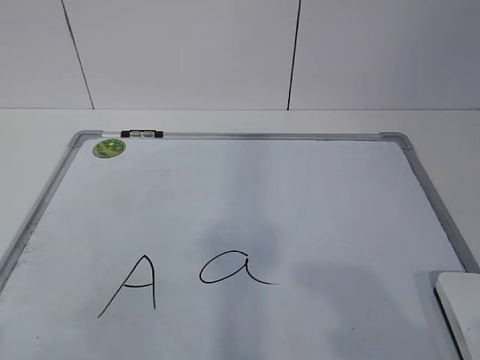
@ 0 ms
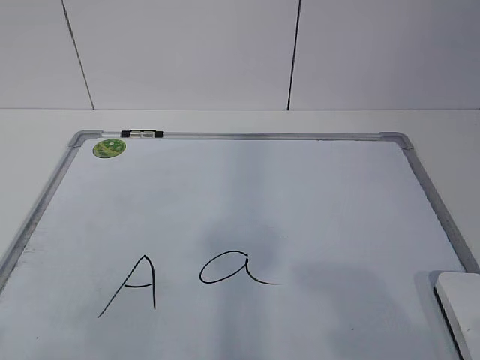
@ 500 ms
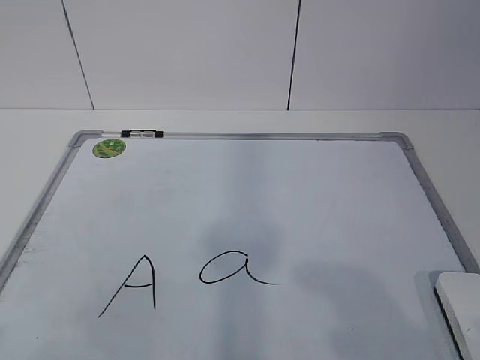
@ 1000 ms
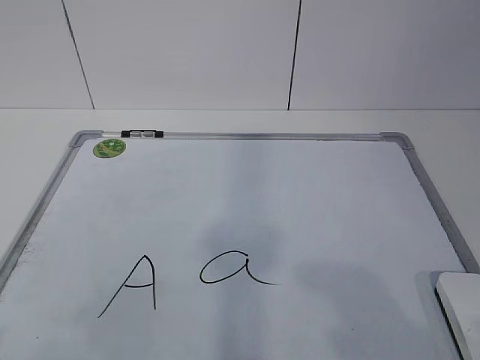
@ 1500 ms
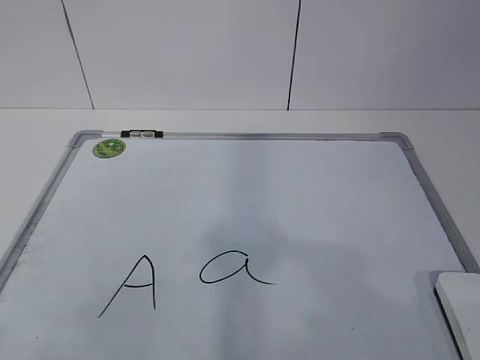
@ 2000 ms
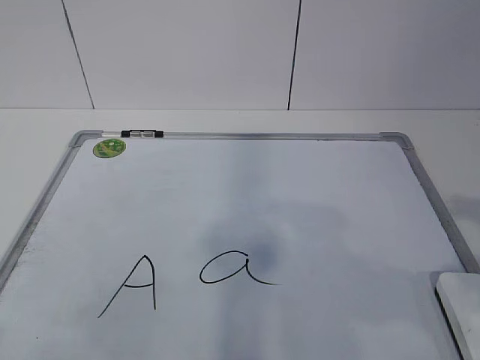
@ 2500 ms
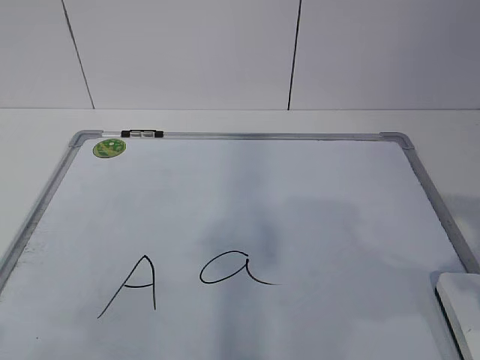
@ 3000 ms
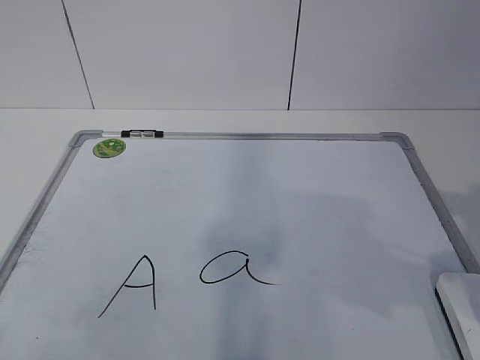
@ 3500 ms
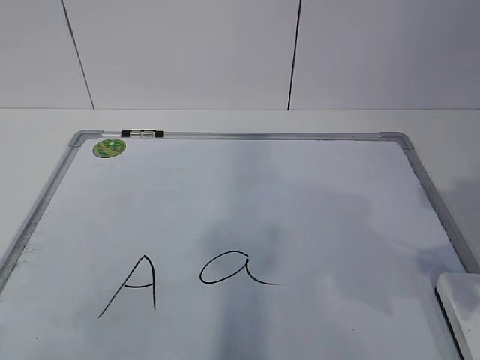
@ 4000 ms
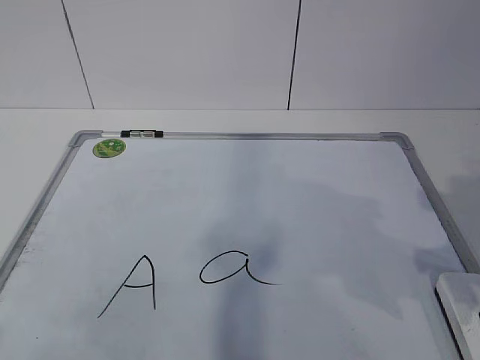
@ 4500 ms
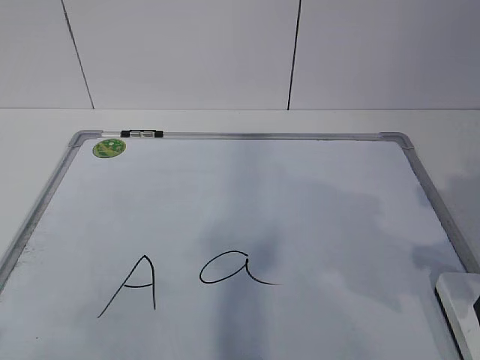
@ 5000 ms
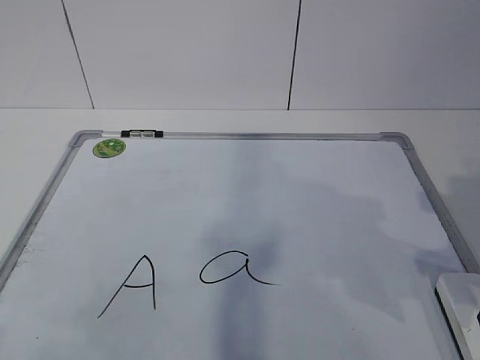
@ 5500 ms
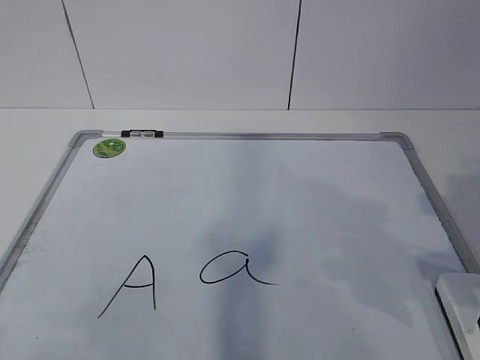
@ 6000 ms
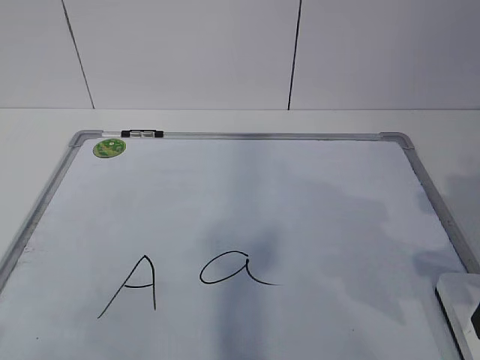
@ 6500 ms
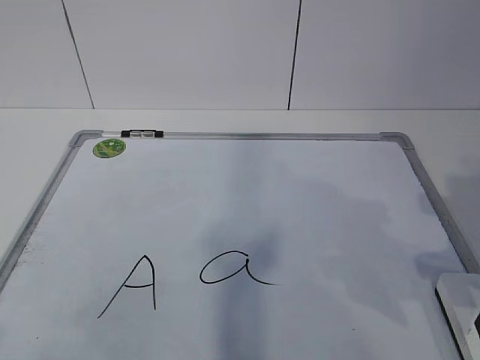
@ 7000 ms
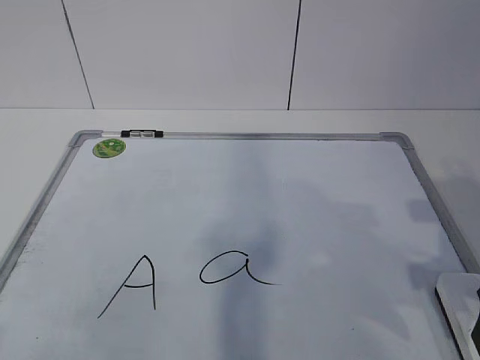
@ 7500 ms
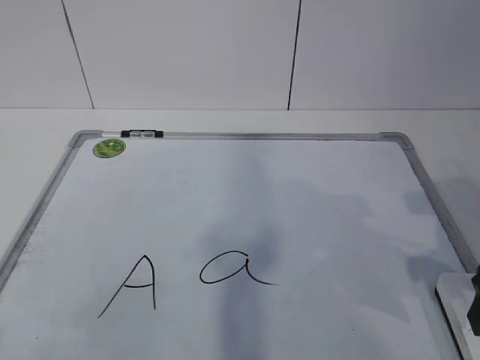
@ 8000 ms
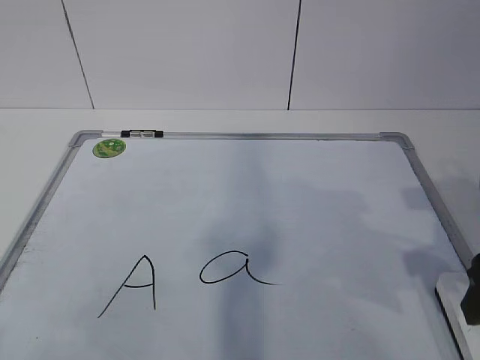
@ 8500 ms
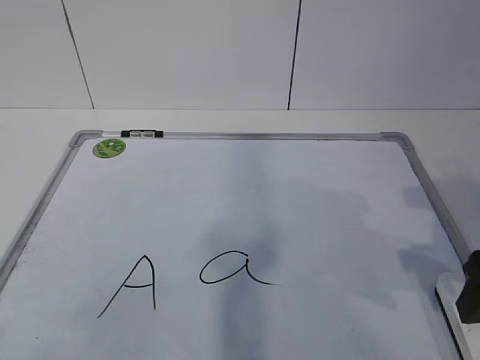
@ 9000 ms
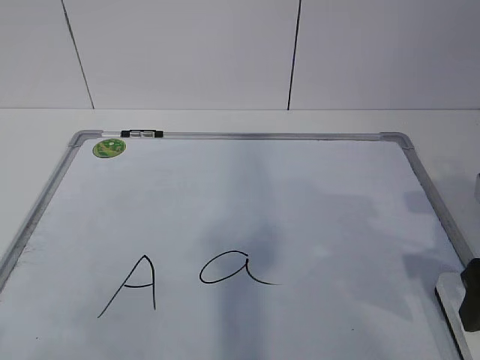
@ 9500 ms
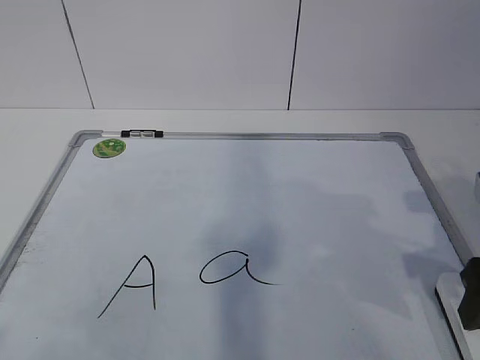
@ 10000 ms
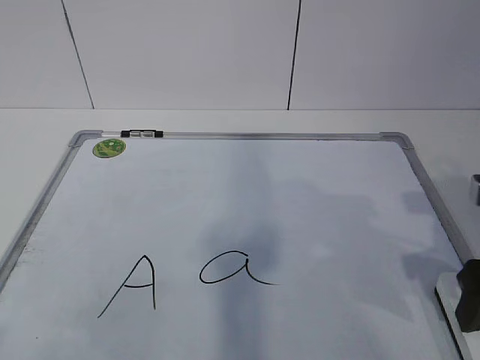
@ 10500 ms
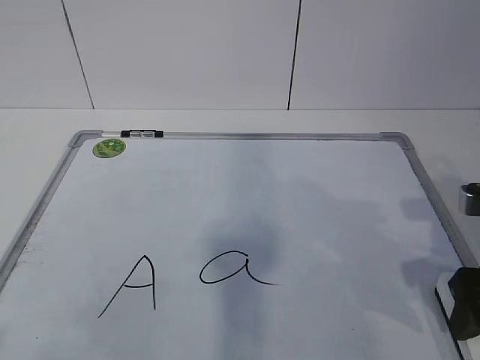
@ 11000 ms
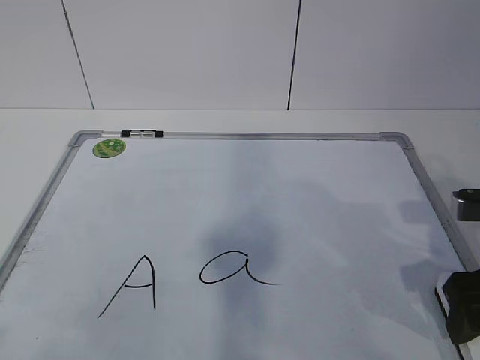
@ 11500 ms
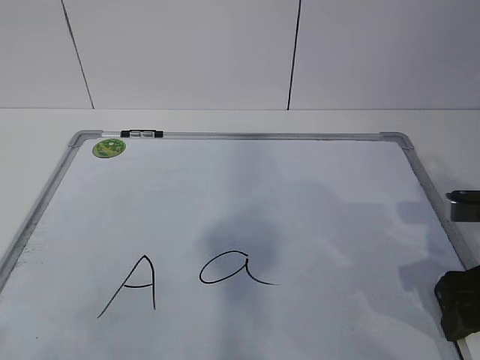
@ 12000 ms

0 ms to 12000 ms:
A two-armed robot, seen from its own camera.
Task of the whole recording: pick up the eraser on the blackboard and erase the letter "a".
2000 ms to 4000 ms: The right gripper travels forward by about 15 cm.
8000 ms to 10000 ms: The two grippers keep their place.
10000 ms to 12000 ms: The grippers move only a little.

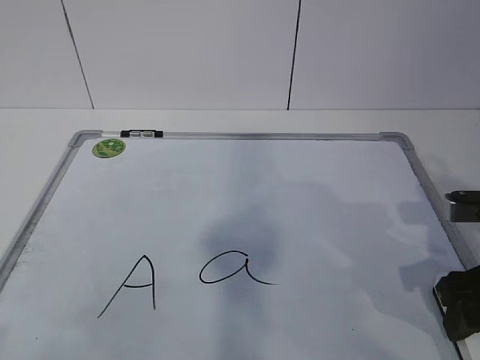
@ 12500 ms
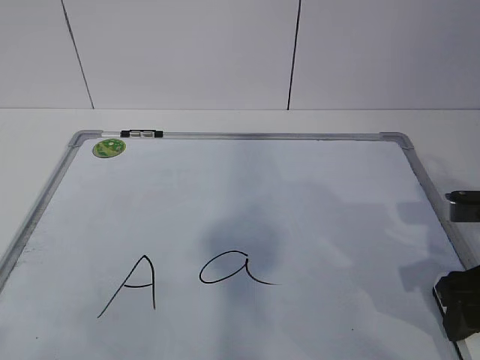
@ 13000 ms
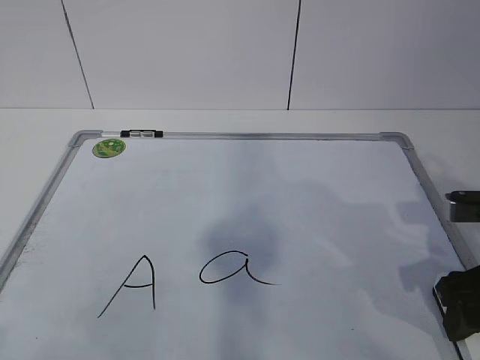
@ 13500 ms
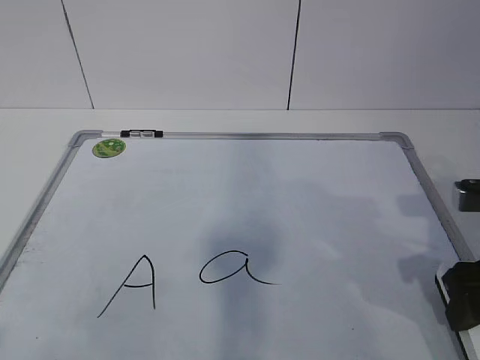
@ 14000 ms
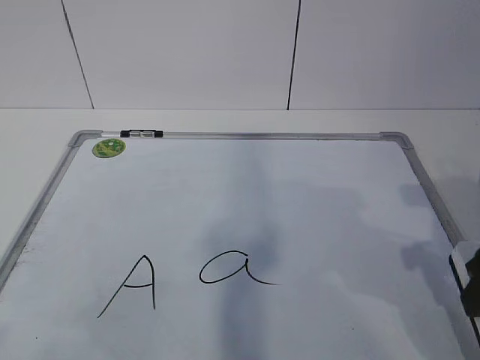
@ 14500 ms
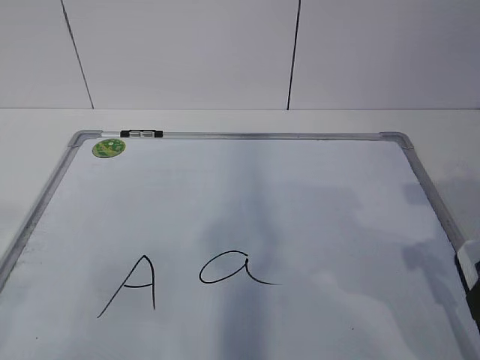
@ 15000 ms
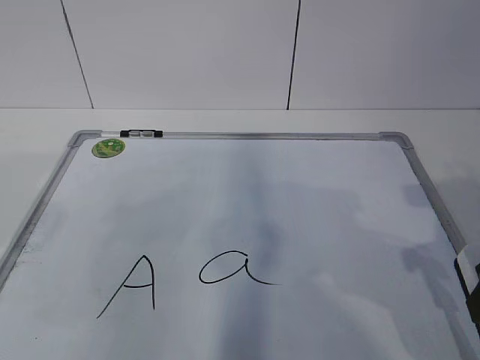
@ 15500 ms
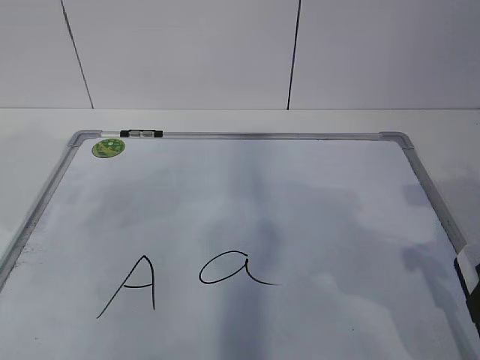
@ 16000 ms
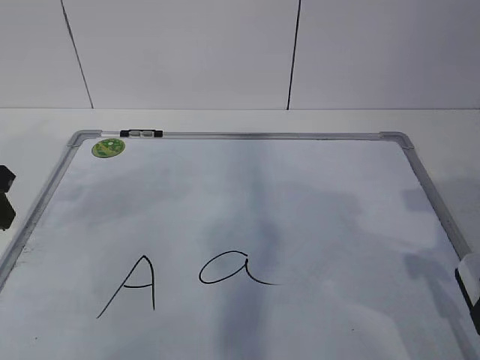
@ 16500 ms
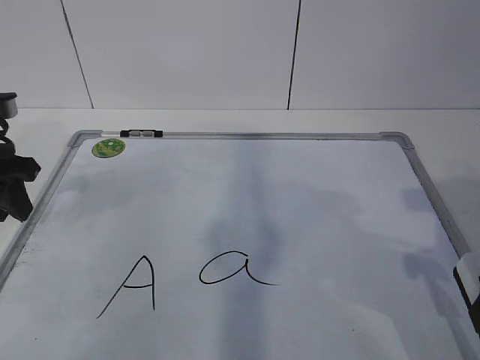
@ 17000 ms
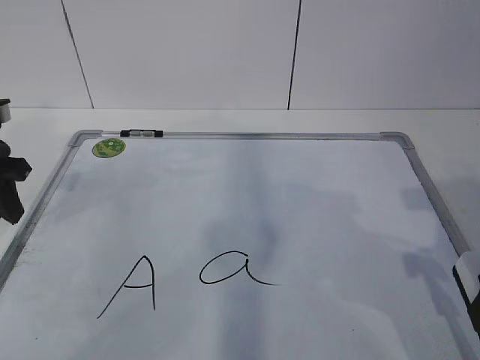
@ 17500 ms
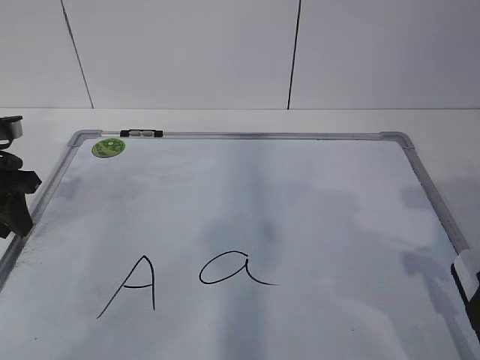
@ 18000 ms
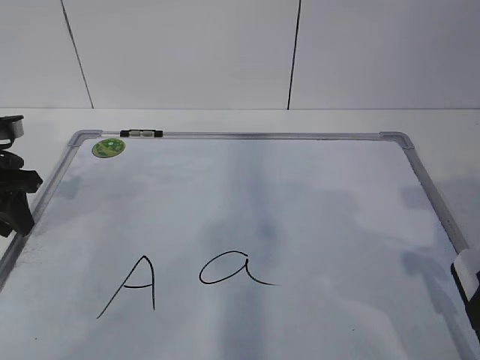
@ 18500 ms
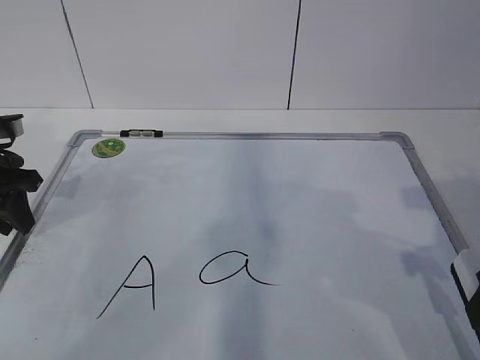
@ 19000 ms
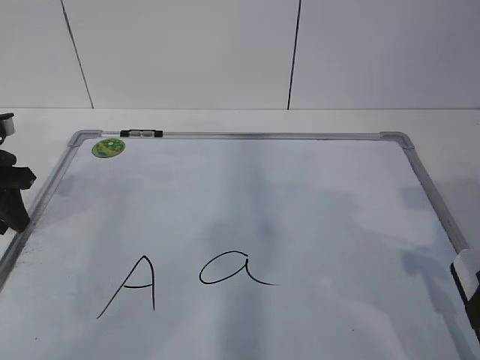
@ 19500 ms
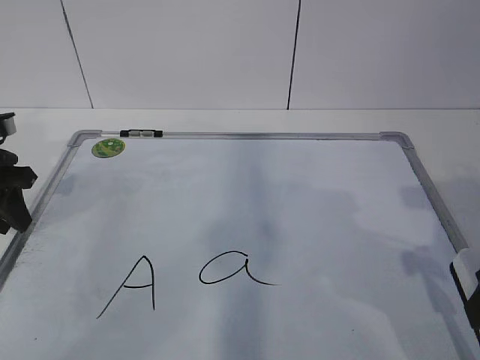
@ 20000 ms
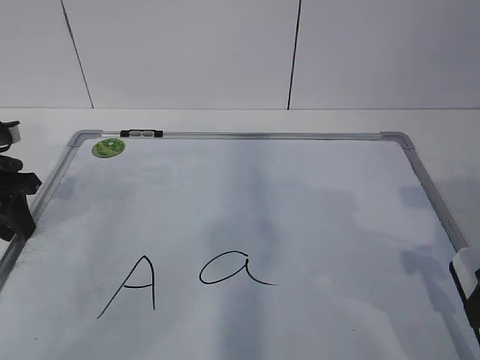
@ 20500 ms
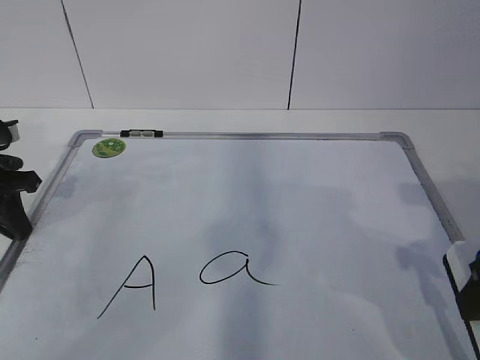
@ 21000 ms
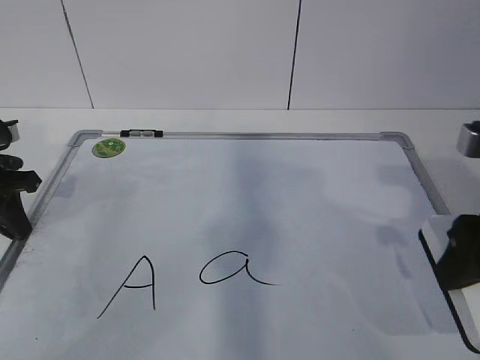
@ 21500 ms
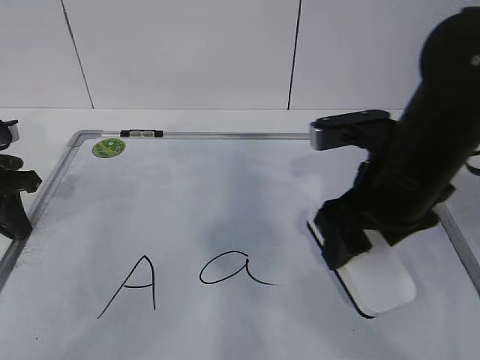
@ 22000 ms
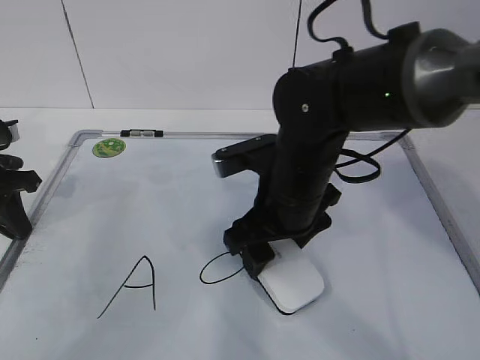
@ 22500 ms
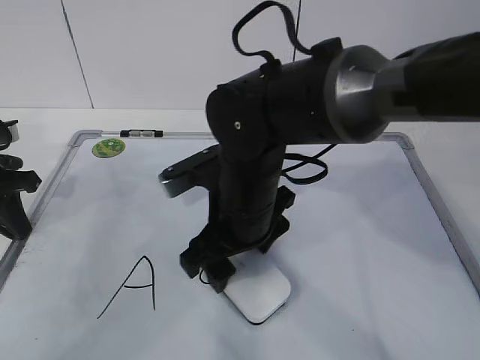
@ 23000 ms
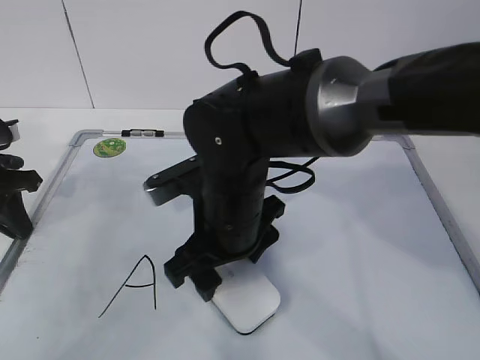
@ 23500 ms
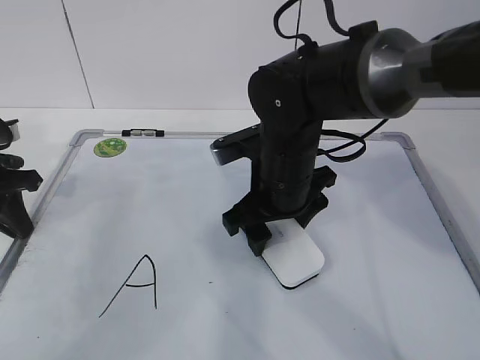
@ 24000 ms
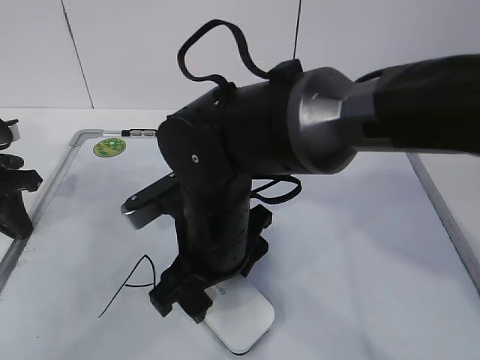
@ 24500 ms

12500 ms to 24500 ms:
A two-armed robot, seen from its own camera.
Task of the whole recording: pick up the eraser on the blackboard and erase the letter "a".
Step, 12500 ms to 17000 ms: Hold the drawing board steady with your left hand.
Step, 21000 ms to 23500 ms: Put down the eraser with your right hand.
12500 ms to 14500 ms: The grippers move only a little.
14500 ms to 16500 ms: The left gripper is displaced forward by some 30 cm.
16500 ms to 18500 ms: The left gripper shifts some 10 cm forward and downward.
20500 ms to 22500 ms: The right gripper goes about 25 cm to the left and forward. Meanwhile the left gripper closes its fingers.
22500 ms to 24500 ms: The right gripper swings left and right, approximately 10 cm each way, with 2 reversals.

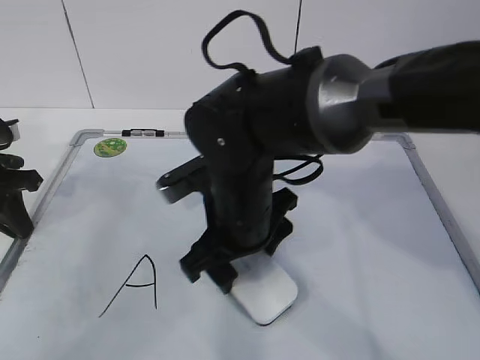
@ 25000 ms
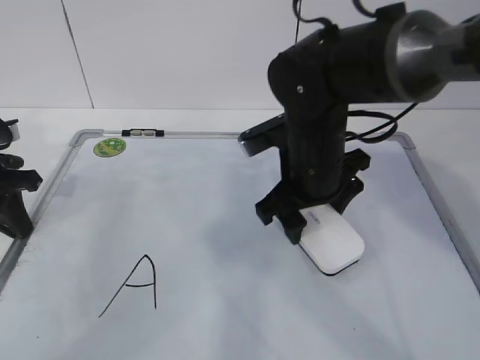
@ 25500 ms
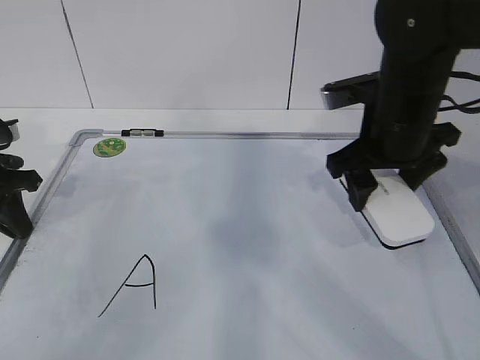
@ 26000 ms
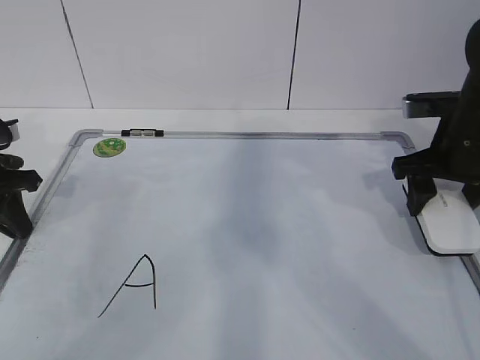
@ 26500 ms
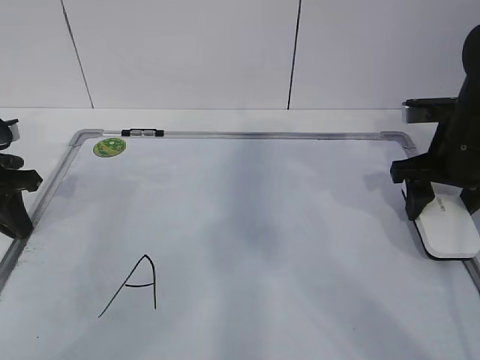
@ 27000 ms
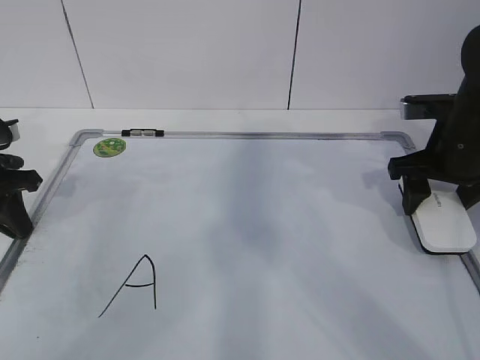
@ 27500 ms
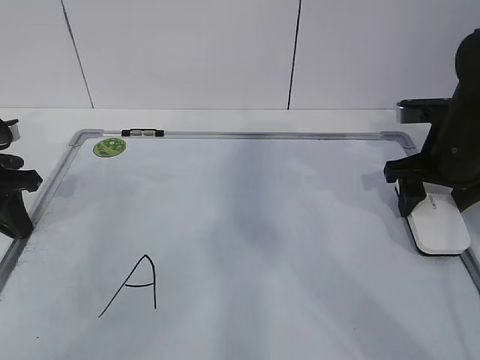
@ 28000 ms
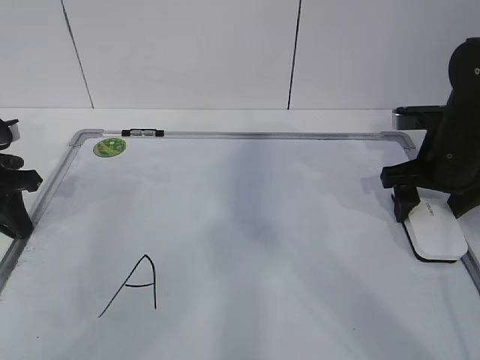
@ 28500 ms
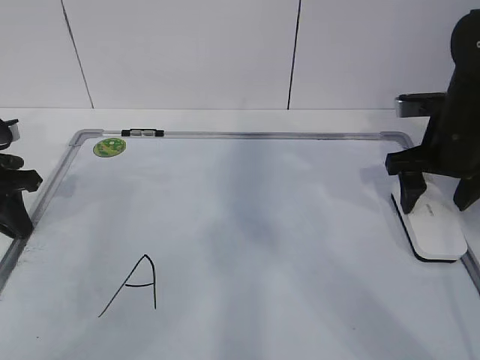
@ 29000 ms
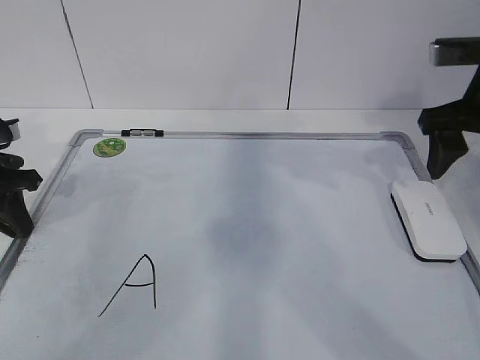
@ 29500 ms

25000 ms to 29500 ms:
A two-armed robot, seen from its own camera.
Task of the whole recording: pick up the eraser on the blackboard and erase the letter "a".
25000 ms to 27000 ms: The right gripper shifts approximately 25 cm to the right.
27000 ms to 29500 ms: The right gripper heads upward, covering approximately 10 cm, and opens.
